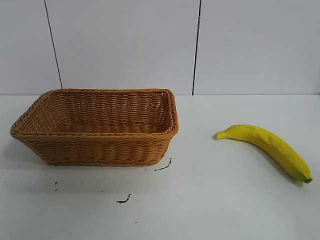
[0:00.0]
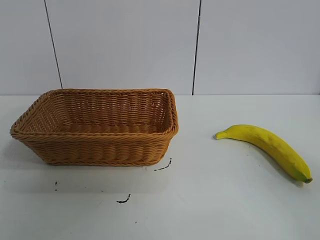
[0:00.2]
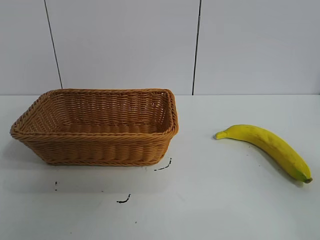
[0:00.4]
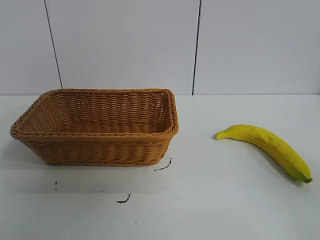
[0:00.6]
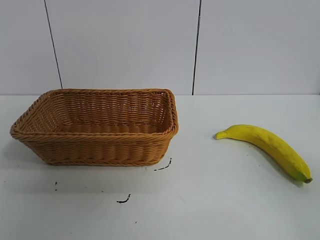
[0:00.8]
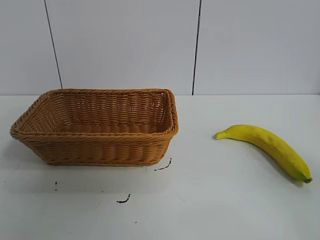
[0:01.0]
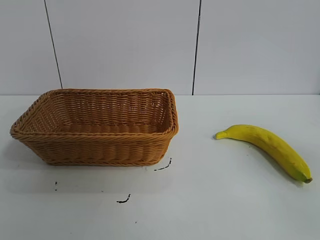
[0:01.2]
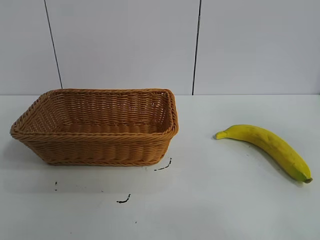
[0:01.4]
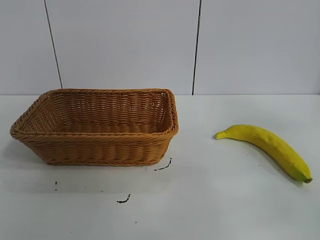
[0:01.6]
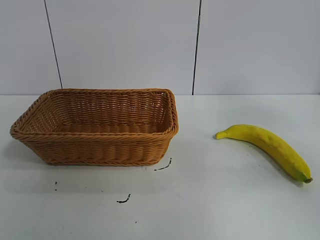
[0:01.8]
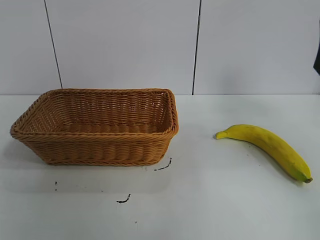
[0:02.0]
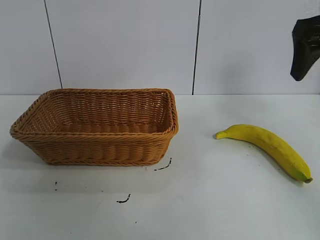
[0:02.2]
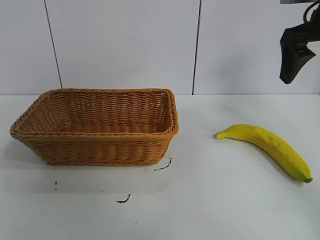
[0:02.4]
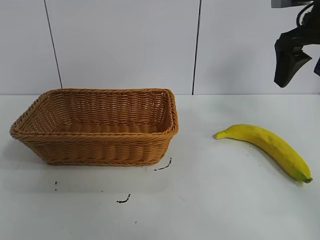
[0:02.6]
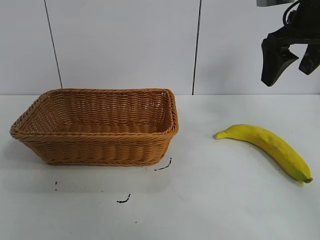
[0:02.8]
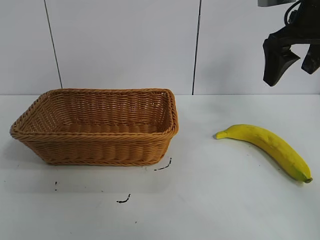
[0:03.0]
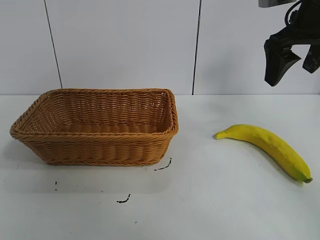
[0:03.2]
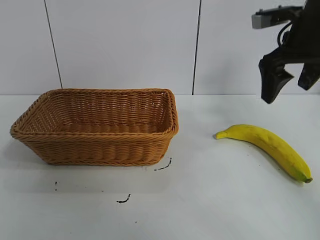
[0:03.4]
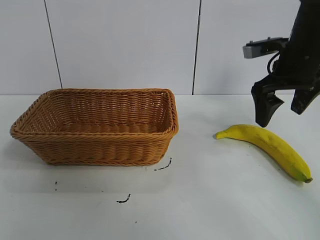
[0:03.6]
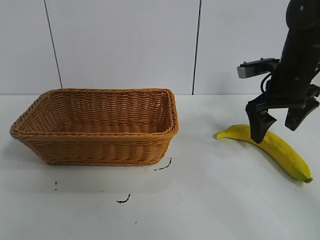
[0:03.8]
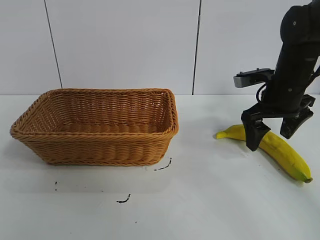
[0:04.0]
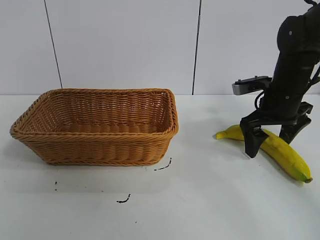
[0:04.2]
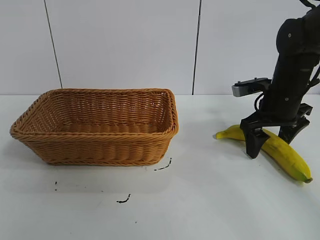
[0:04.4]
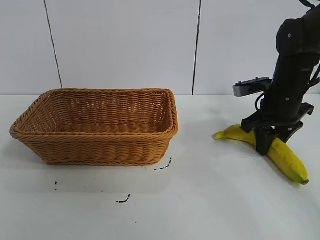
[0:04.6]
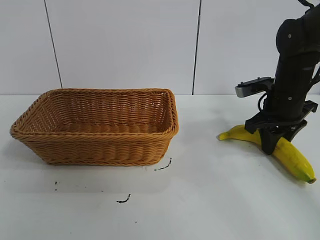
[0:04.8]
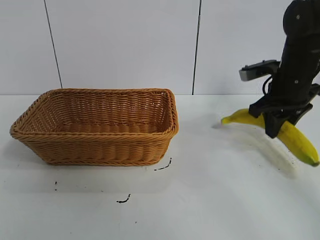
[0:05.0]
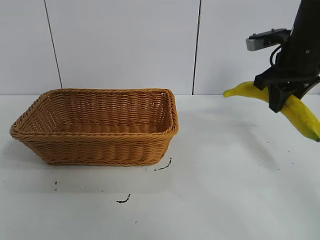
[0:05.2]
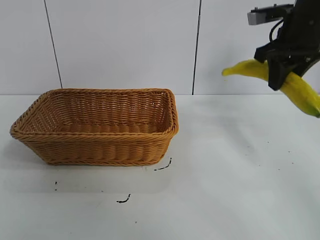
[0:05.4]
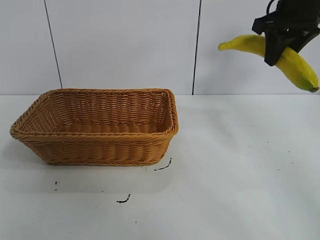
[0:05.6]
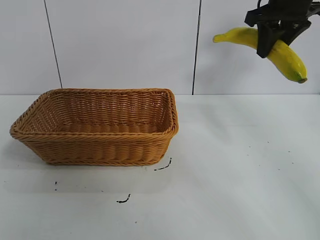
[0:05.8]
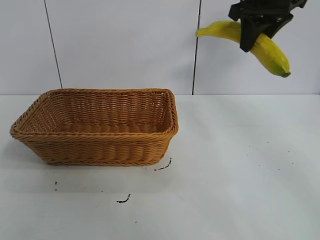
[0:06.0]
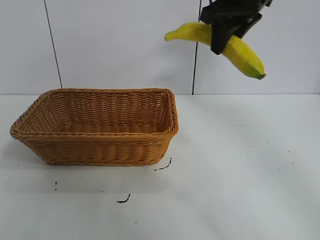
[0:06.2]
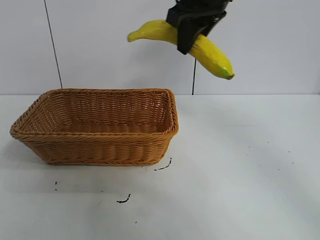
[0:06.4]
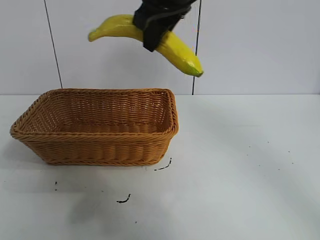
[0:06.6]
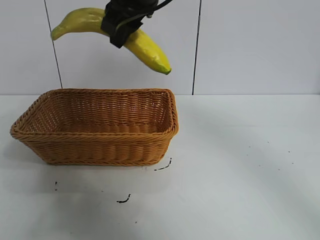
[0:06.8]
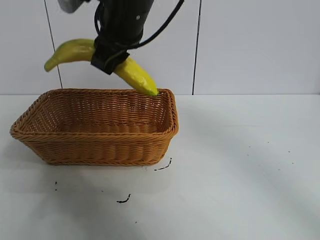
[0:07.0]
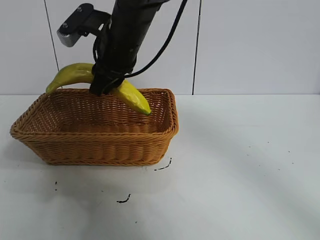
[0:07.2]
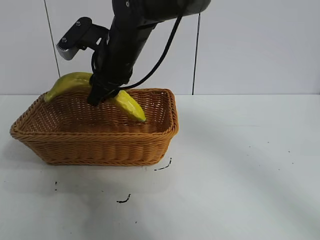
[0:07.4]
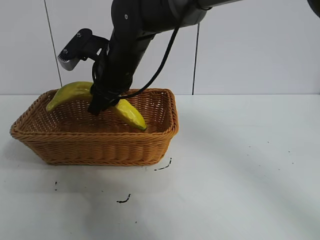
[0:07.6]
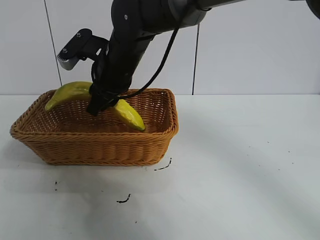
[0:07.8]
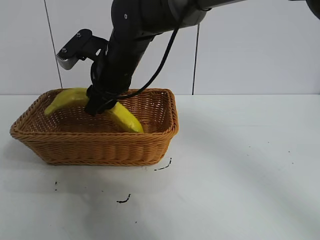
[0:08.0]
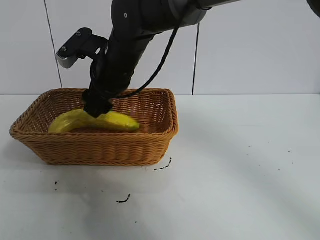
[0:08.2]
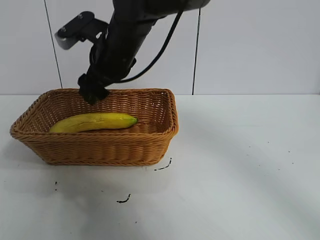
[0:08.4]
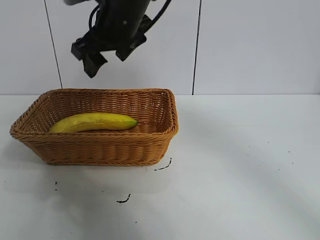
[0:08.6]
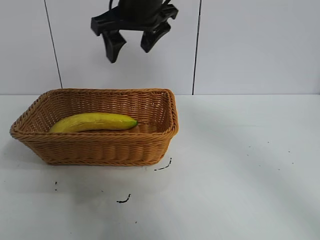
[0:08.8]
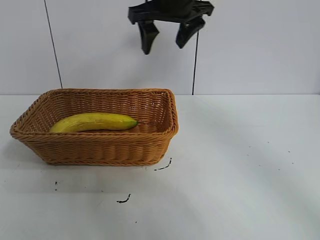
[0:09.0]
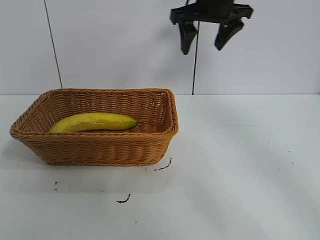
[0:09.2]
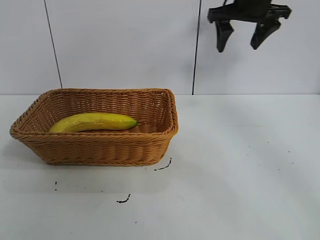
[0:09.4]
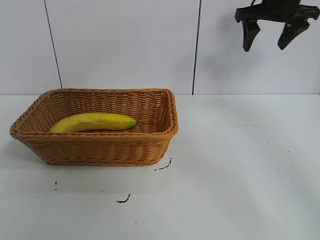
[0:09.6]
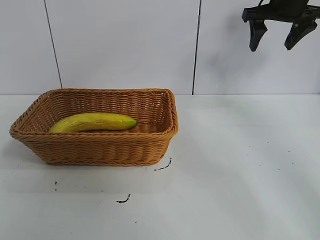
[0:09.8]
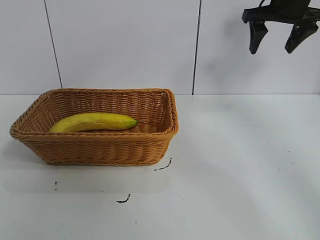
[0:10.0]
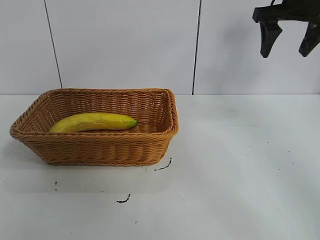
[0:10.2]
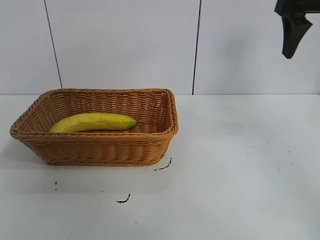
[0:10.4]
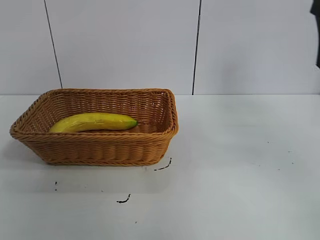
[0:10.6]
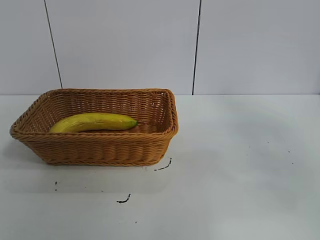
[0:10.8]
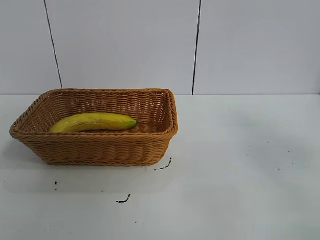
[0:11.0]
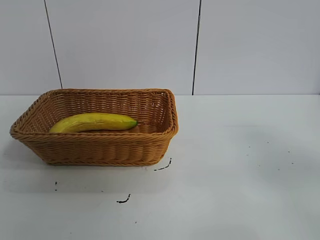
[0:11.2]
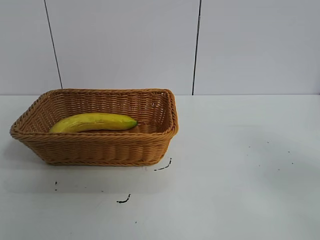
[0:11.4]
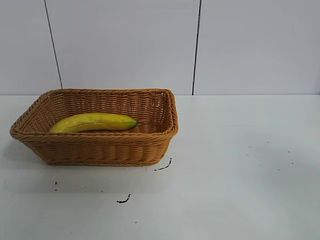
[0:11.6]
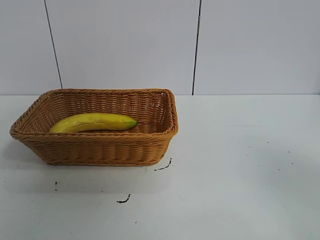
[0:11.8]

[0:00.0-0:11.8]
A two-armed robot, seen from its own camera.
Task of the whole recording: pick up the banana and put it into the basket.
Step, 0:00.8 to 0:04.6: Grasp the banana with right gripper.
Step, 0:05.0 to 0:08.2: Place the banana in the basket with right gripper.
